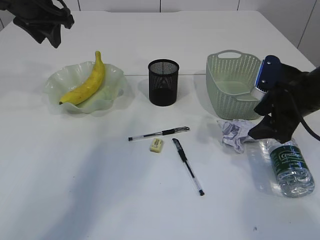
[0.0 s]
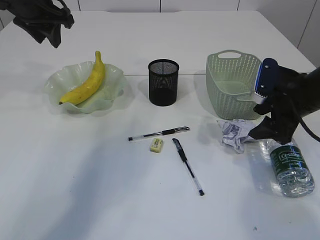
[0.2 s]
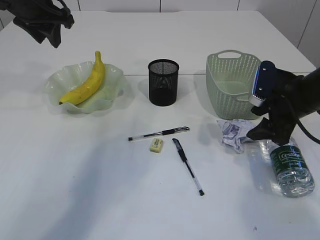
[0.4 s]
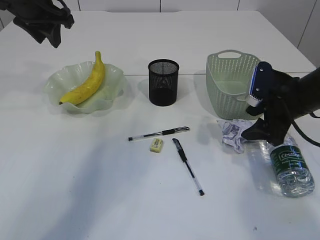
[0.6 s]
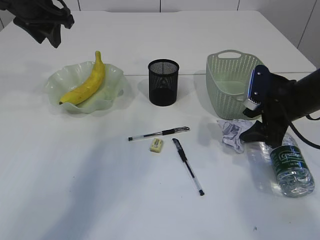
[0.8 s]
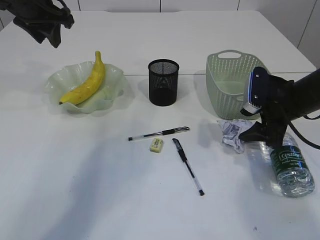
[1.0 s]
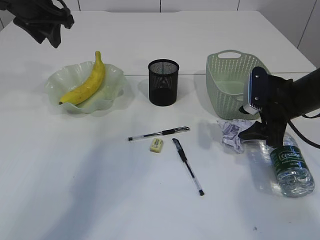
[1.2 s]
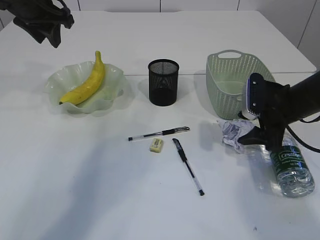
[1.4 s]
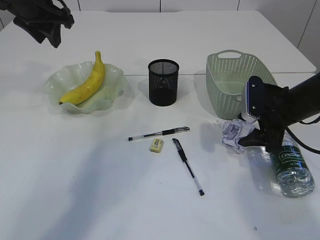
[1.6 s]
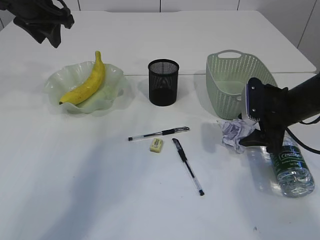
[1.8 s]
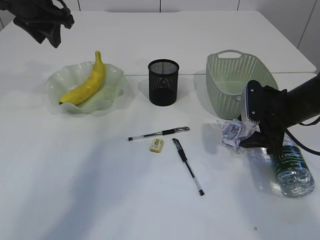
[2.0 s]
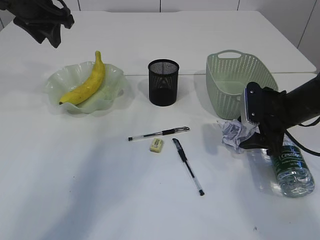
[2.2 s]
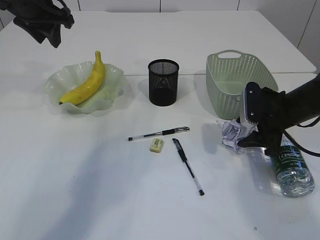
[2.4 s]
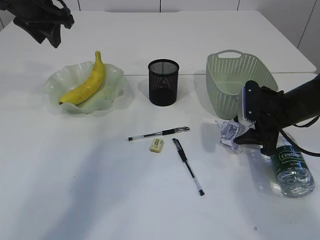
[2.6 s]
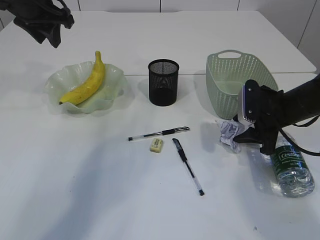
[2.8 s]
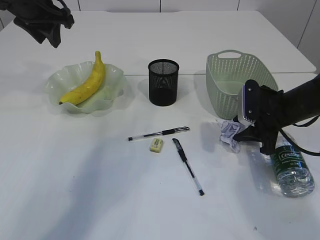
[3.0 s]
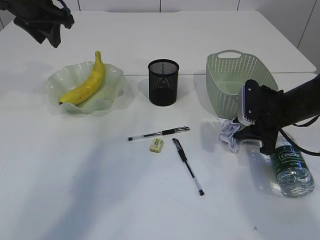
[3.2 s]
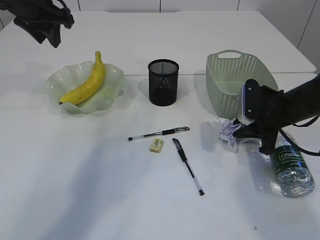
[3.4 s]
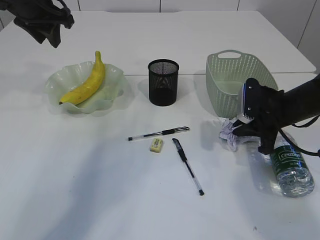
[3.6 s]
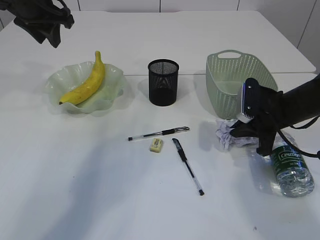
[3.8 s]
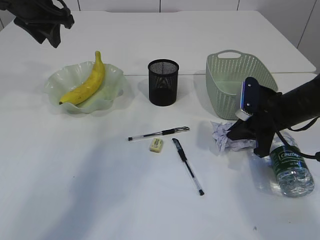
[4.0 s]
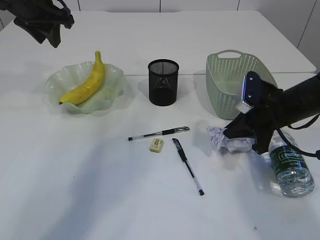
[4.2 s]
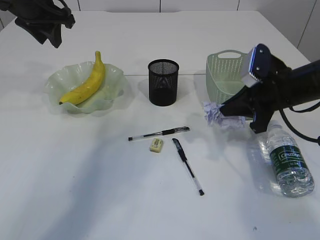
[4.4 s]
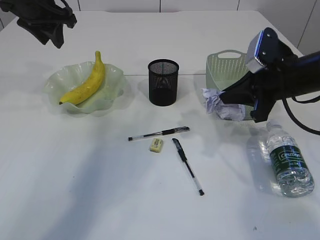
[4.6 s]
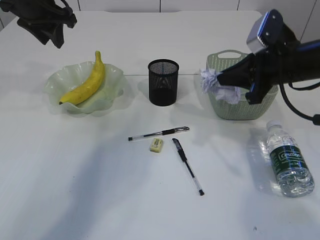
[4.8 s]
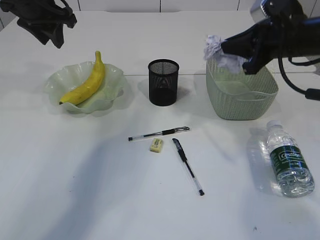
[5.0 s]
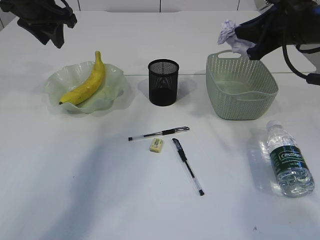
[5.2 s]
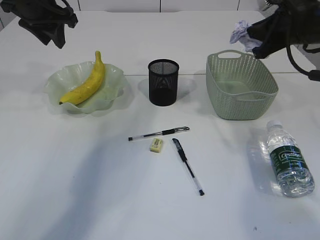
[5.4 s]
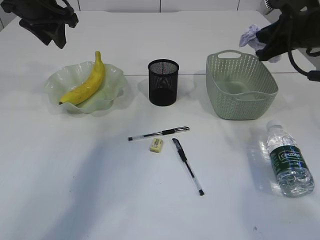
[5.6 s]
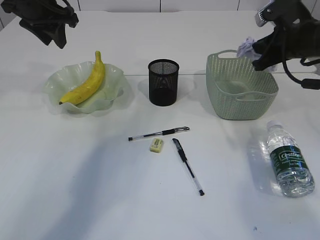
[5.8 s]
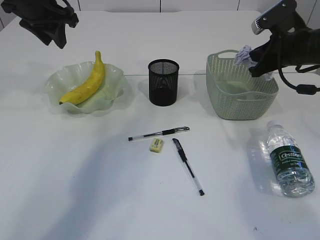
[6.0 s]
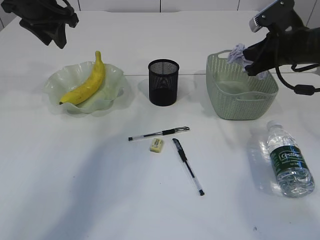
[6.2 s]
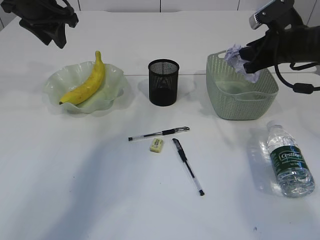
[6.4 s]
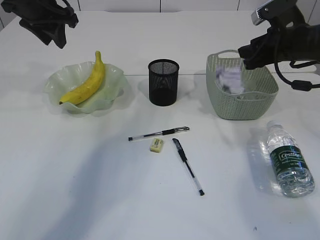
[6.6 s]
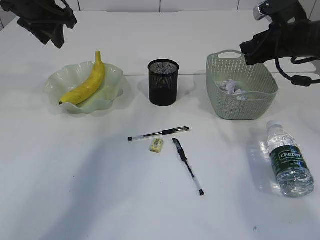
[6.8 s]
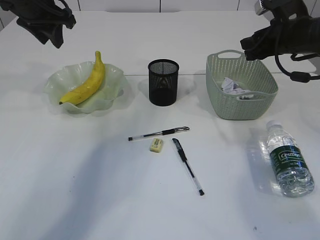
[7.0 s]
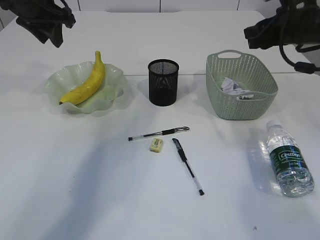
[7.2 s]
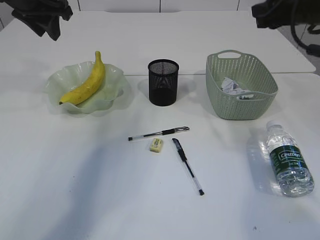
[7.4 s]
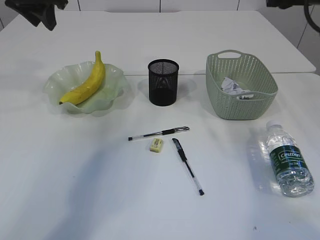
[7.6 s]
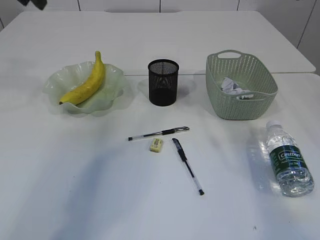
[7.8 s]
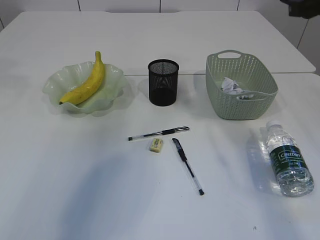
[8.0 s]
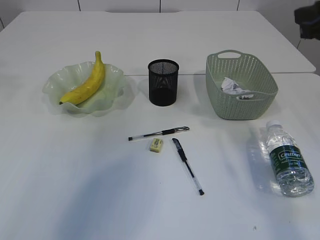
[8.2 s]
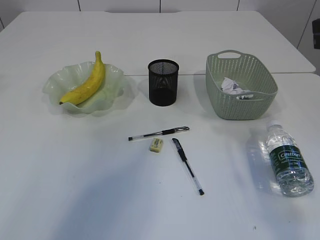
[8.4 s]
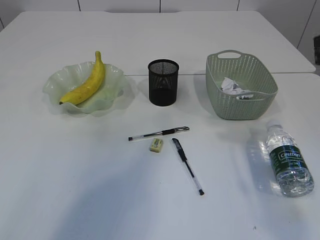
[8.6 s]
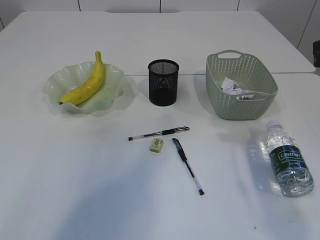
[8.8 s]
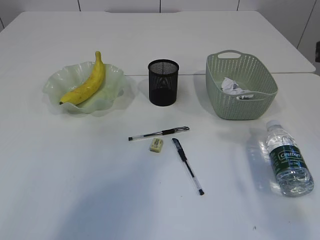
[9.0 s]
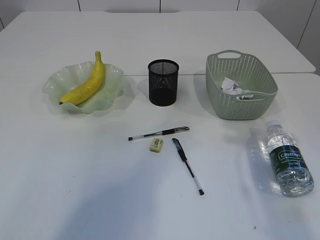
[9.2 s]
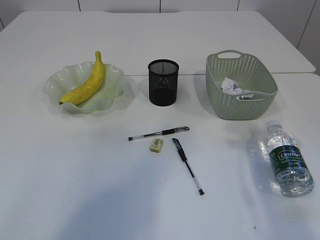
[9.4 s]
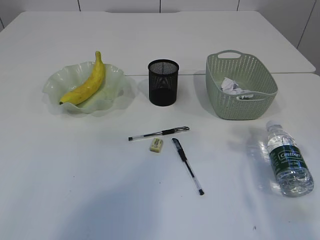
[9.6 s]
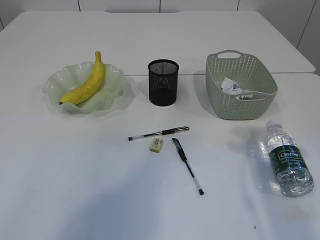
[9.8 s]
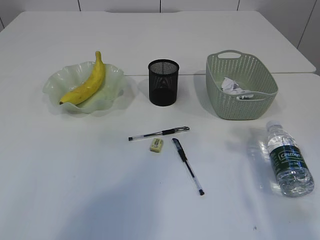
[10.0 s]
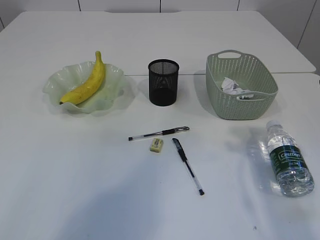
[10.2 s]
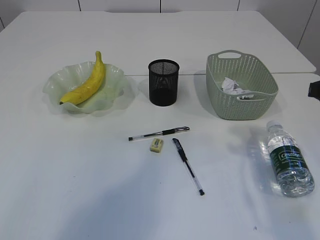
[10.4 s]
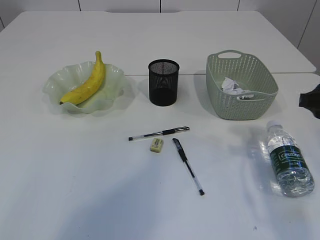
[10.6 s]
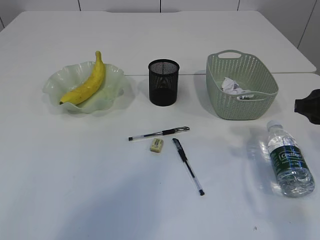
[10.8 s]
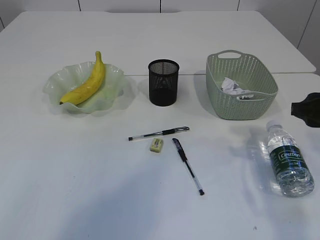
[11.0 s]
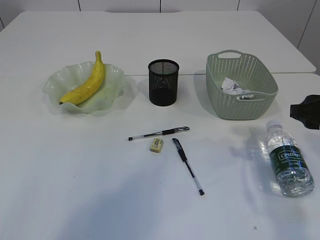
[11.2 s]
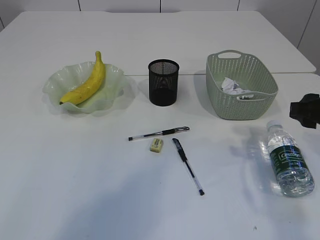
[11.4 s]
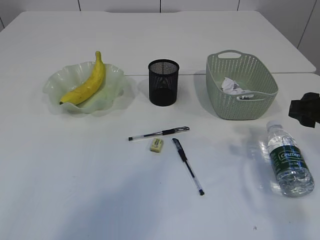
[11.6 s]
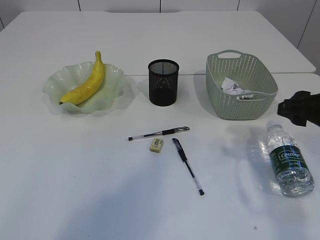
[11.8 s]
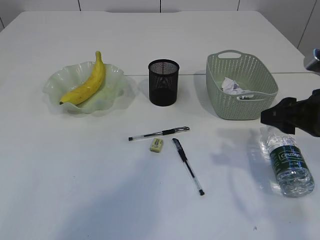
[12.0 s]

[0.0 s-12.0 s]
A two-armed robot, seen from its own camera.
Step, 0.0 to 4.4 s: Pick up the waste paper.
Step, 4.6 to 7.0 s: Place the waste paper in the basket.
0.0 to 1.6 s: The grippers stay close to where they were, moving slightly.
1.6 to 3.0 s: The grippers move only a little.
3.0 to 4.4 s: The right gripper moves upward, roughly 5 cm, and closes up.
4.4 to 6.0 s: The right gripper moves forward, roughly 5 cm.
6.0 to 7.6 s: The right gripper goes some 10 cm upward, and opens up.
7.6 to 9.0 s: The left gripper moves upward and backward, some 20 cm; the right gripper is displaced backward by some 10 cm.
10.4 to 12.0 s: The right gripper moves some 5 cm.

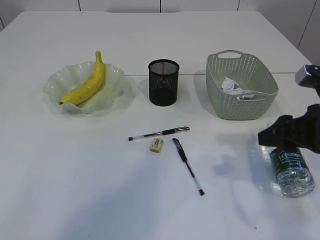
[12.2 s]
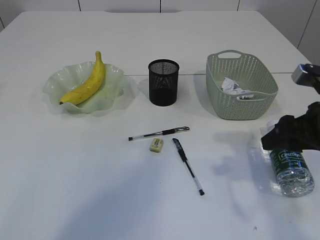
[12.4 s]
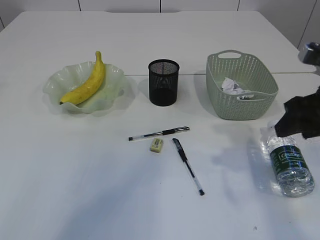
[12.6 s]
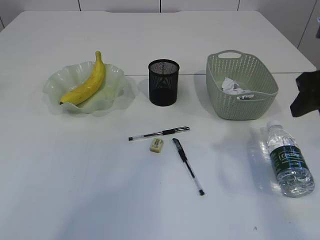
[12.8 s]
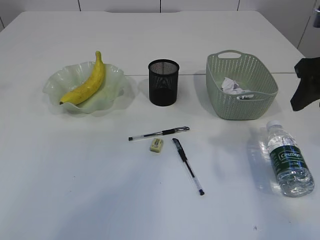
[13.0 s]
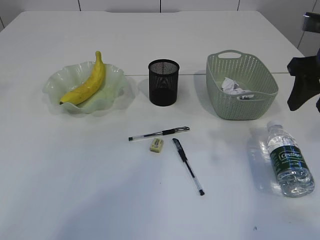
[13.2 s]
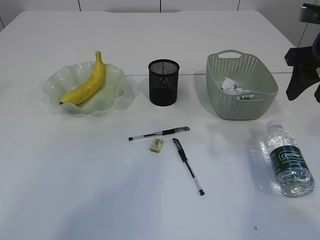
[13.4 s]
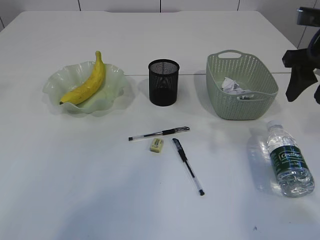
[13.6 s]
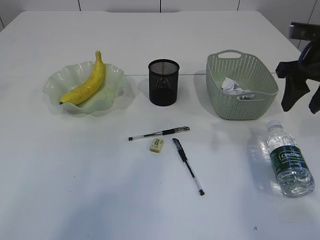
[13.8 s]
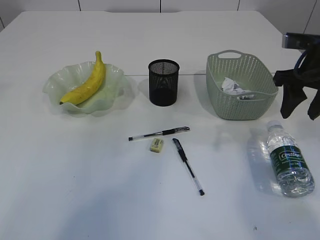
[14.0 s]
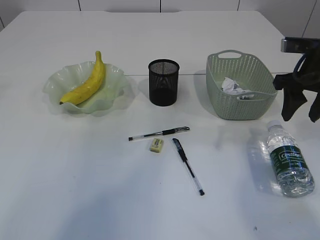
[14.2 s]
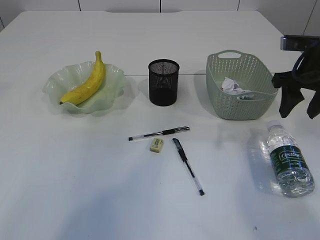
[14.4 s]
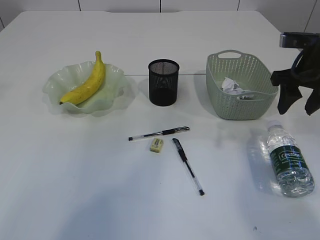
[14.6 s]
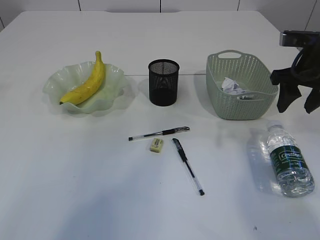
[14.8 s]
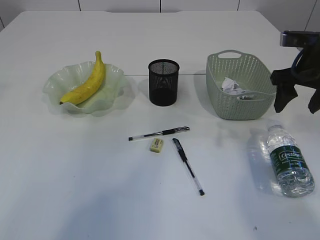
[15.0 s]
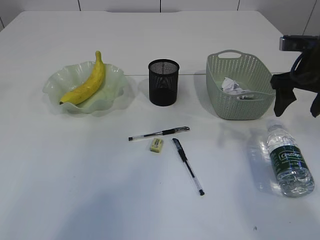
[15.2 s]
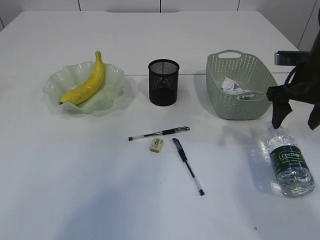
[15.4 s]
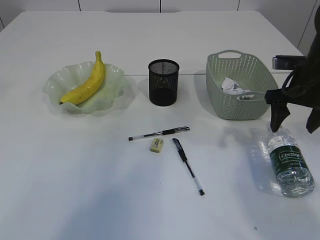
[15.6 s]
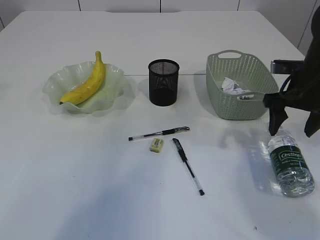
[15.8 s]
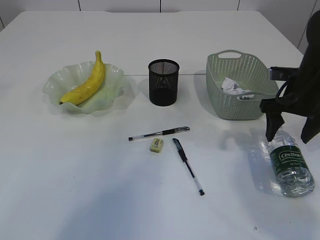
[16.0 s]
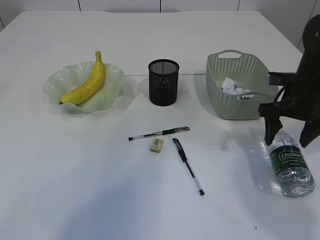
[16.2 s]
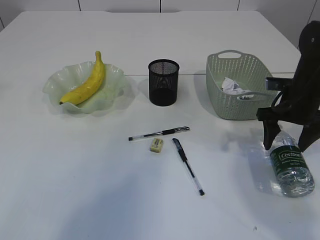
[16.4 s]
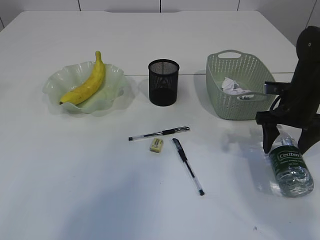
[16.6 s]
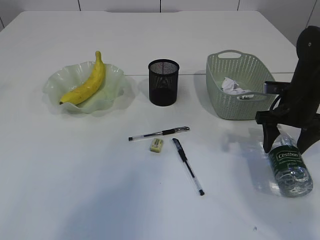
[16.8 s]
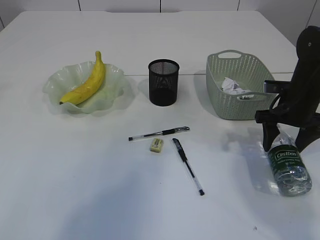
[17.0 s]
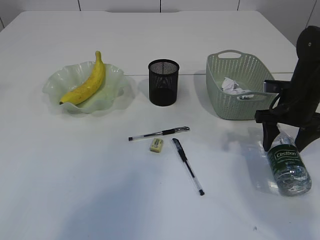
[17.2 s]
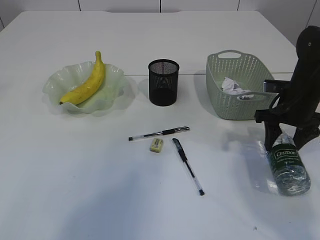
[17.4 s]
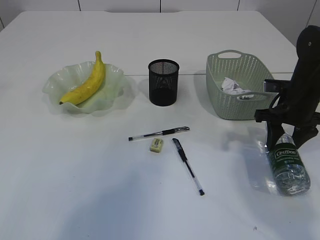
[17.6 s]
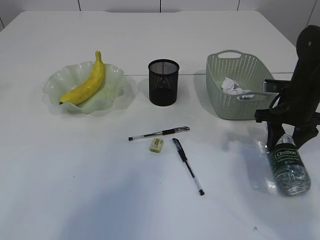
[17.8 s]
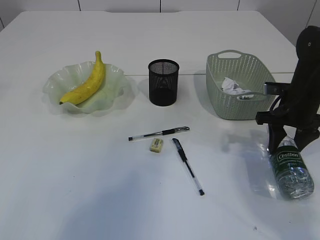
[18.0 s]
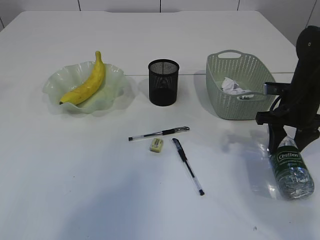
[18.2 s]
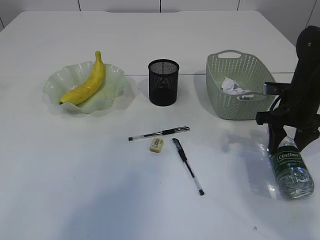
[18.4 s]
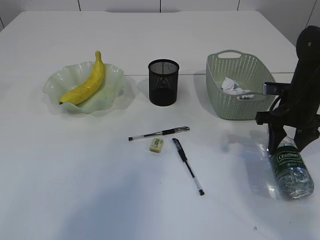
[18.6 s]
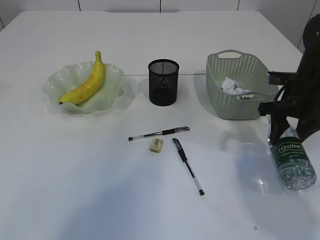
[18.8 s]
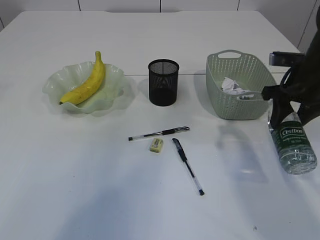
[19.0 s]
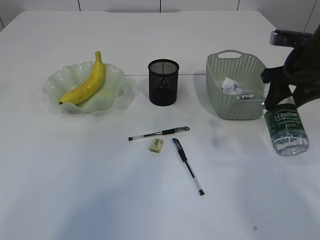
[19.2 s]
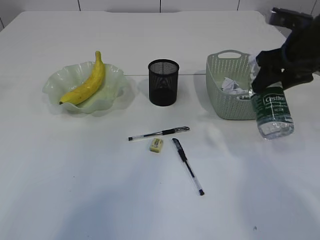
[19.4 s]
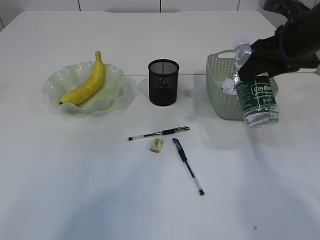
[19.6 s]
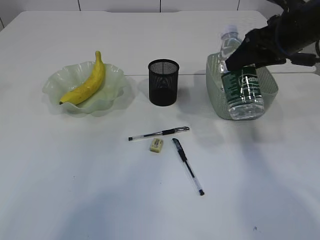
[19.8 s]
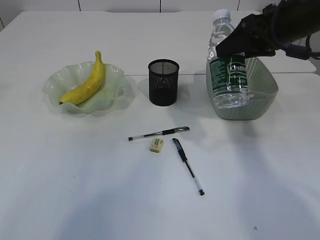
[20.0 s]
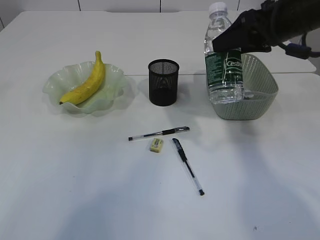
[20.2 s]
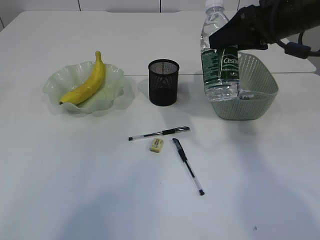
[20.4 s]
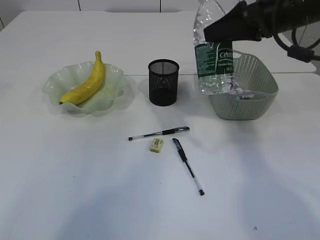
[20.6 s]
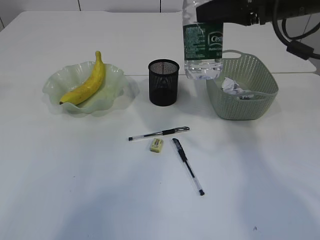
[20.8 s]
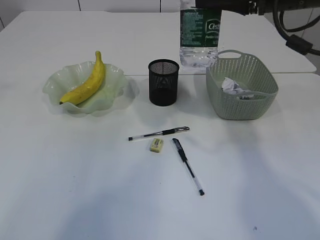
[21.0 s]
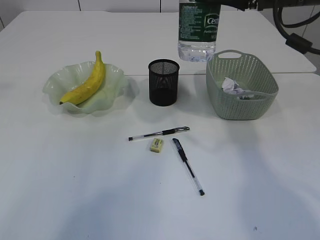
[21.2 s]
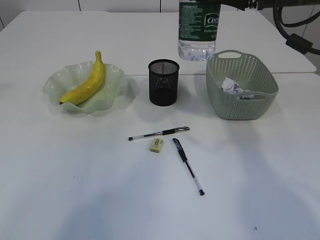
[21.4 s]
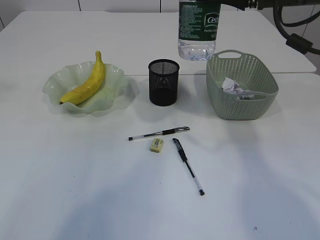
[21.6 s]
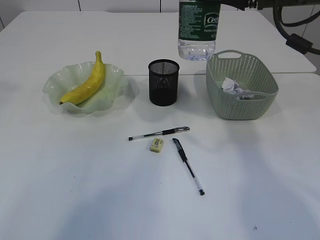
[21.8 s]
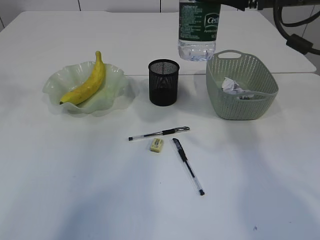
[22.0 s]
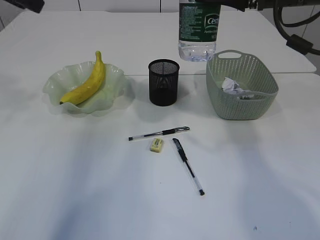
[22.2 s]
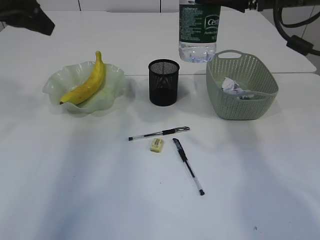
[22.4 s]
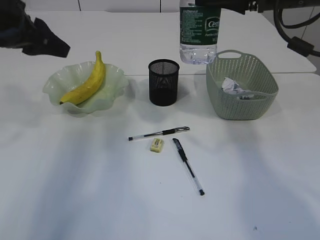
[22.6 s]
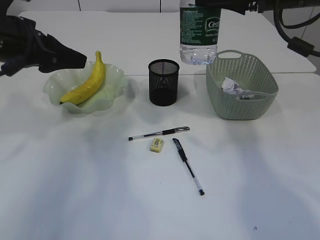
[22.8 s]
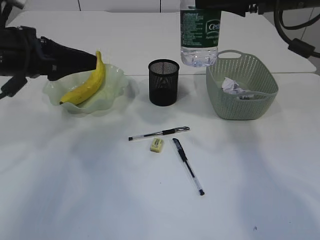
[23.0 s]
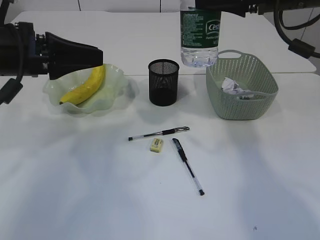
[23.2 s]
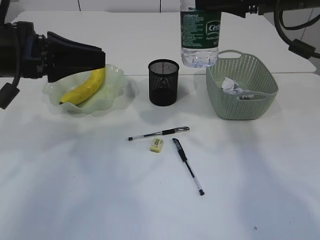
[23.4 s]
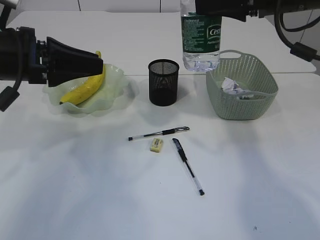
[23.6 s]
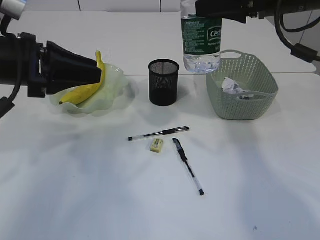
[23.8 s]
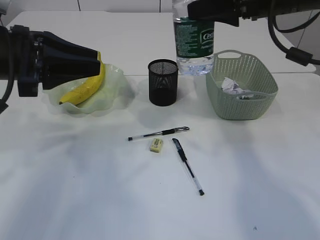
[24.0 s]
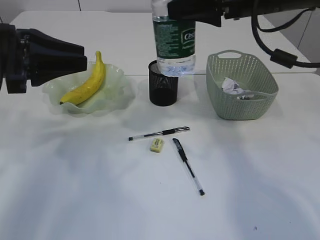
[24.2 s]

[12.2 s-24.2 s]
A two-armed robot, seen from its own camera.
Step, 12.2 to 19.0 s: Pick up the bottle with the right arm.
12.2 to 13.8 s: The right gripper moves forward and upward, approximately 10 cm.
13.8 to 15.2 s: The grippers make only small movements.
15.2 to 16.6 s: The right gripper goes about 10 cm downward.
16.6 to 18.2 s: The right gripper closes up.
18.2 to 19.8 s: The right gripper heads upward, covering about 15 cm.
19.8 to 21.2 s: The right gripper moves upward, roughly 5 cm.
21.2 to 22.6 s: The left gripper travels downward by some 20 cm.
22.6 to 24.2 s: The left gripper moves about 5 cm.
